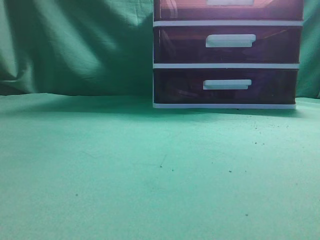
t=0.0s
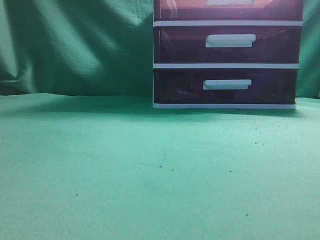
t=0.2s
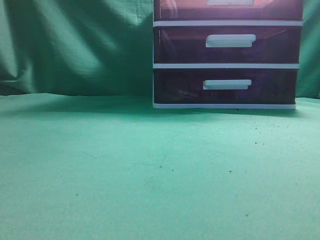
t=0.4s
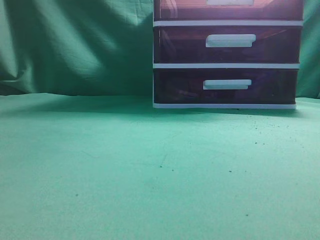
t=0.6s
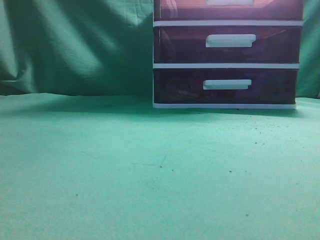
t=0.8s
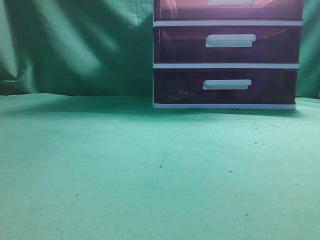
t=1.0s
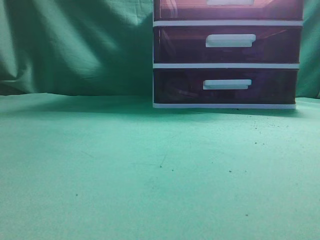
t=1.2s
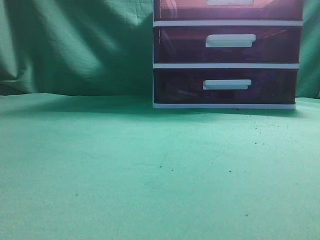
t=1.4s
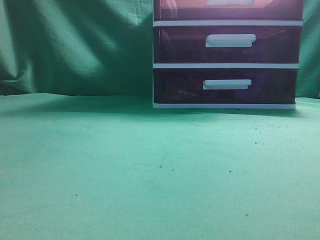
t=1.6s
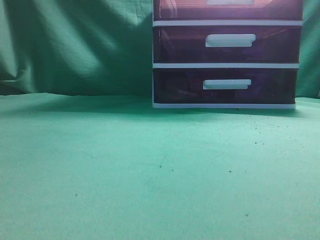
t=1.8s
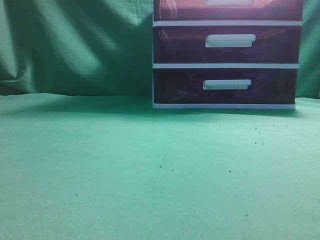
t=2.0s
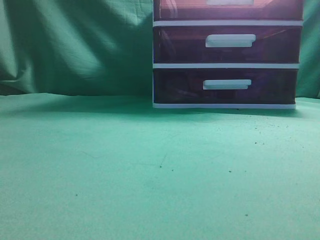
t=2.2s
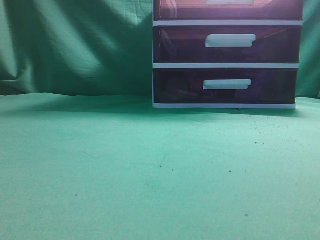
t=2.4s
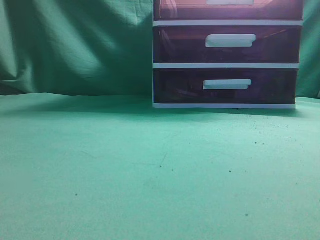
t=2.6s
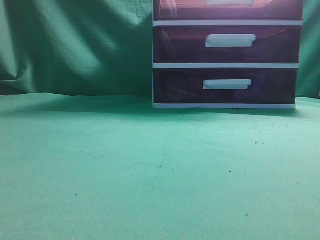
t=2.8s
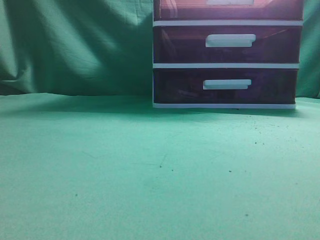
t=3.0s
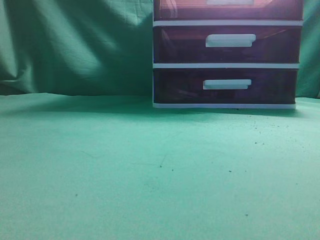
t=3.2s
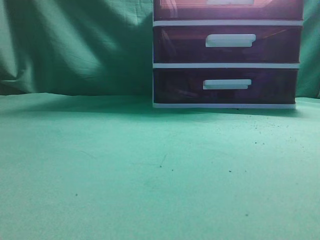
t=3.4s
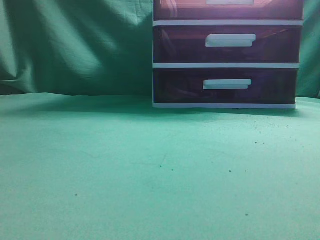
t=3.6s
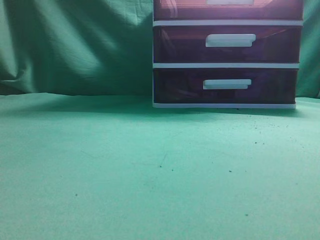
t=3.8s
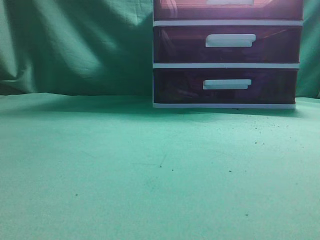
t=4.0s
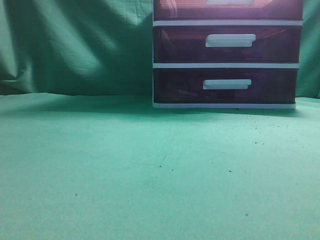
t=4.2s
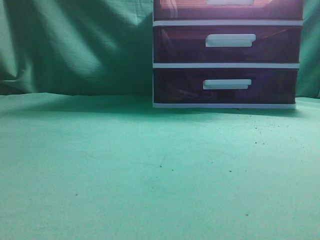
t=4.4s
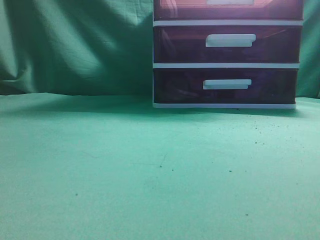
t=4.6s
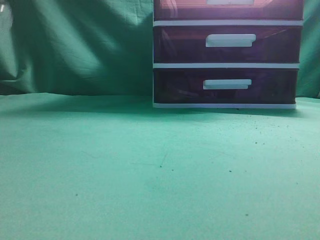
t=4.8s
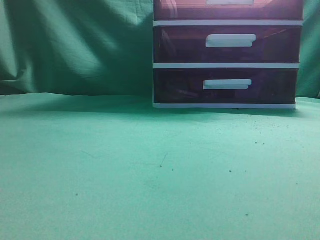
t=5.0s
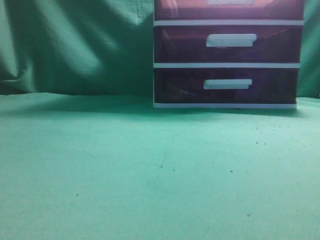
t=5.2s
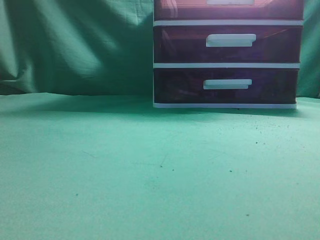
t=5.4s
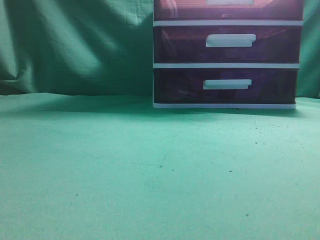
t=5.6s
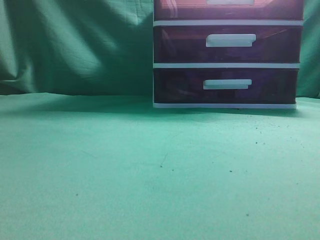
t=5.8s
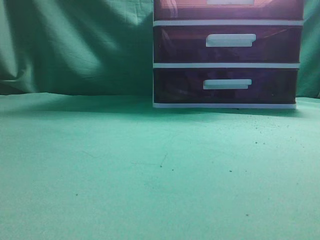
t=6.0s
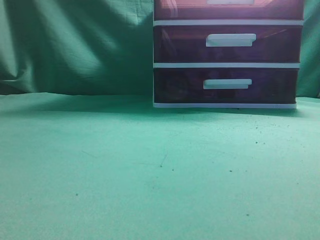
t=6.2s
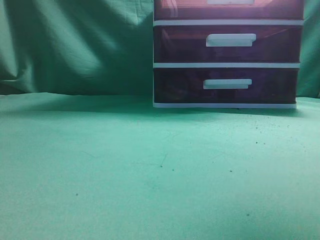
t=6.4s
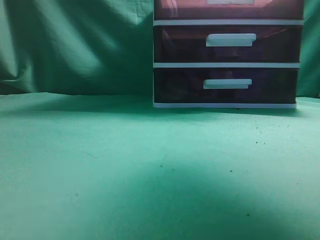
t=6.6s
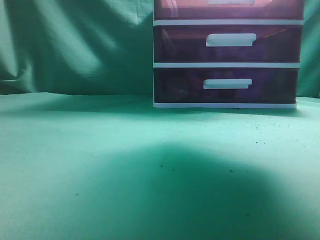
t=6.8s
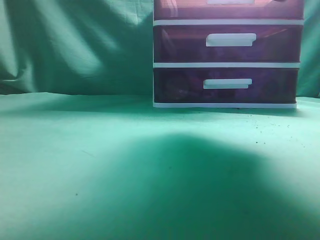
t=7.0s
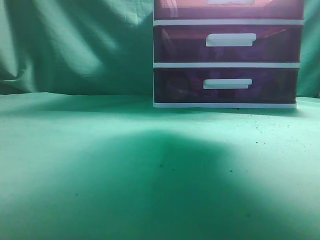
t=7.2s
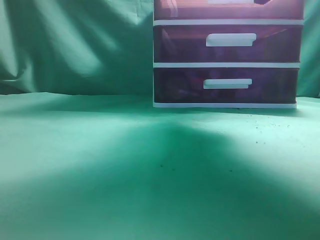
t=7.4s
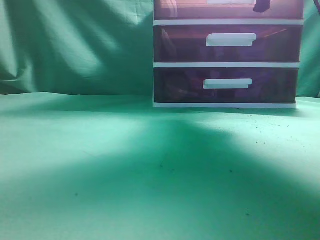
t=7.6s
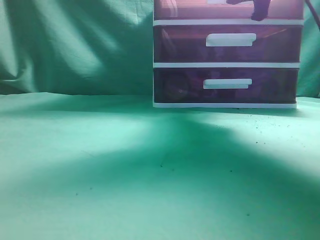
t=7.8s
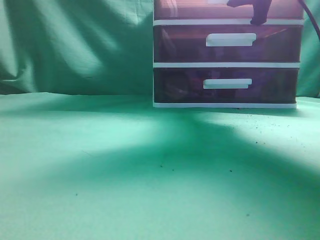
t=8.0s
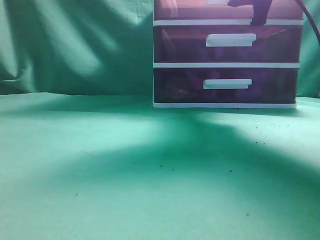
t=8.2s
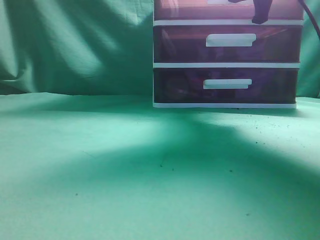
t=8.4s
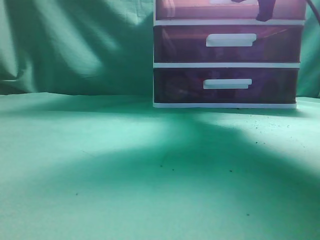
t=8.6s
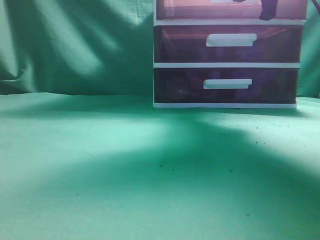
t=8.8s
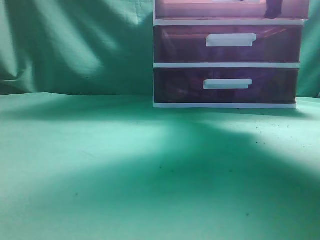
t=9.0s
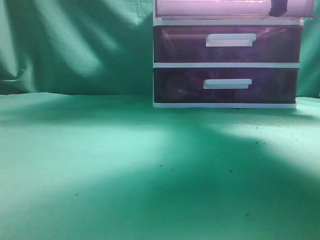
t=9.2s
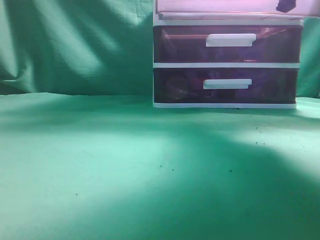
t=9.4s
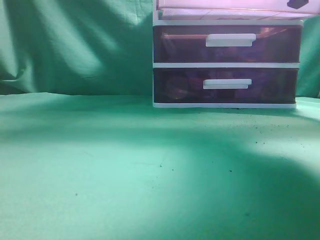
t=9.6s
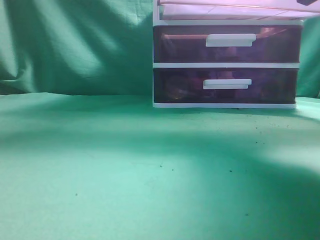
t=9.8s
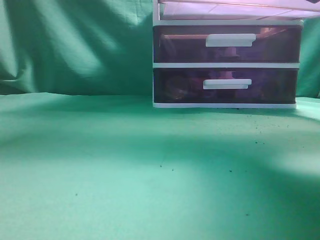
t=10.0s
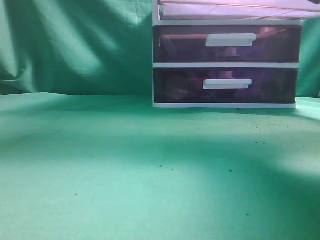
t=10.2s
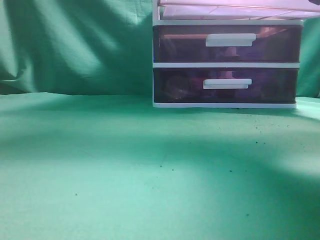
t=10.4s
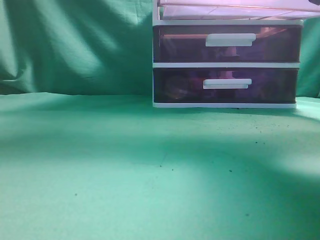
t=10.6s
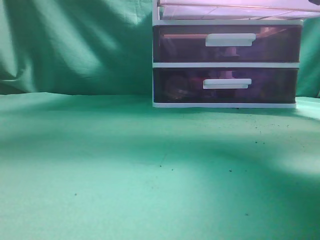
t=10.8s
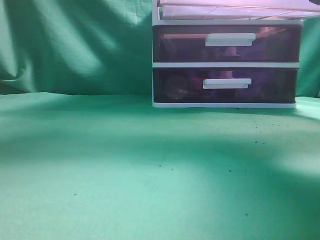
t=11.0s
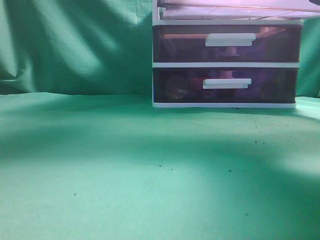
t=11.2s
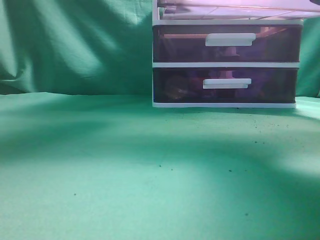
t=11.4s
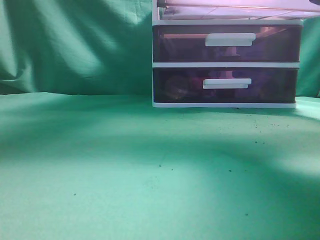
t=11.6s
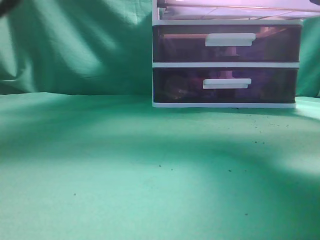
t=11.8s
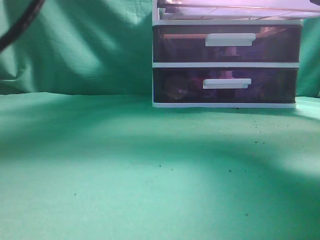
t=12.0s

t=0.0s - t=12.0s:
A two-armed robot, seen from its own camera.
Task of the whole recording: place the water bottle into the drawer.
Step, t=0.0s - t=10.6s: Open the drawer.
t=6.0s - t=7.6s: The right gripper is displaced forward by some 30 cm, and opens up.
t=7.6s - t=9.0s: The right gripper closes up.
t=9.0s - t=10.4s: The right gripper travels backward by about 10 cm. Meanwhile the left gripper heads upward and forward, covering roughly 10 cm.
t=10.4s - t=12.0s: The left gripper goes roughly 30 cm forward and to the right.

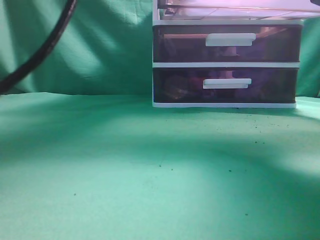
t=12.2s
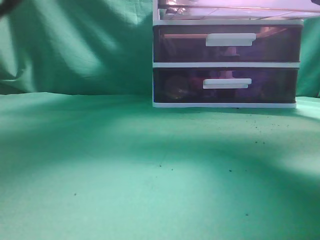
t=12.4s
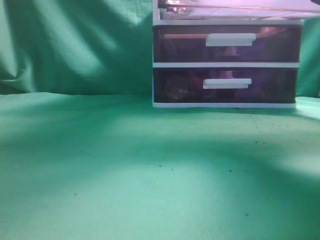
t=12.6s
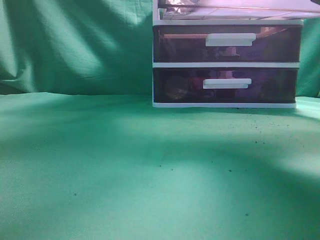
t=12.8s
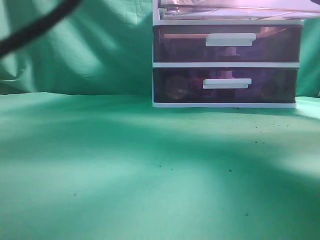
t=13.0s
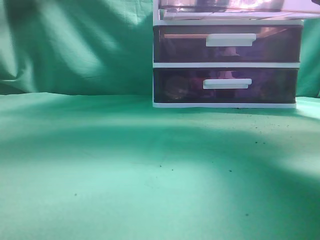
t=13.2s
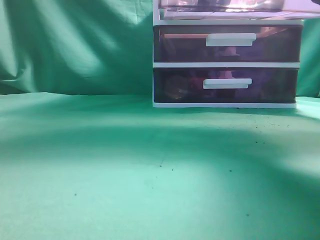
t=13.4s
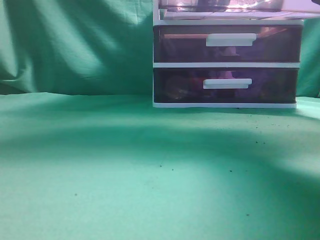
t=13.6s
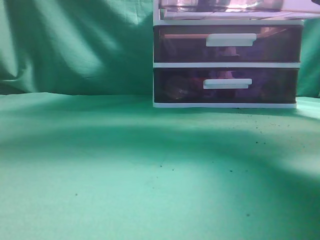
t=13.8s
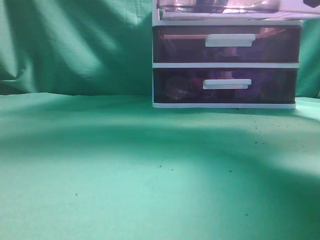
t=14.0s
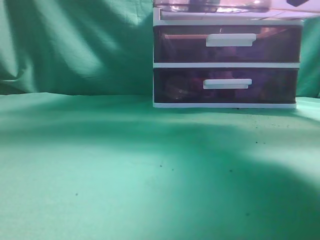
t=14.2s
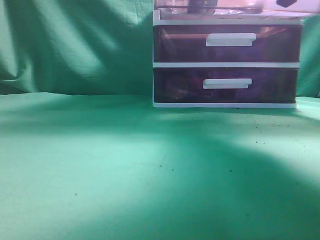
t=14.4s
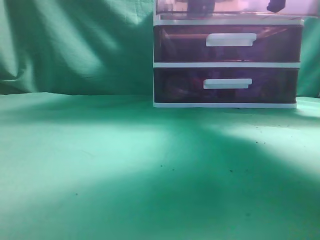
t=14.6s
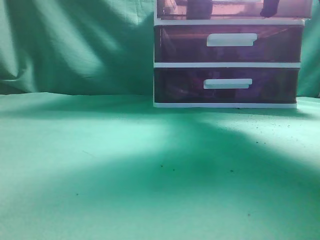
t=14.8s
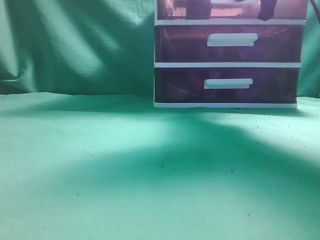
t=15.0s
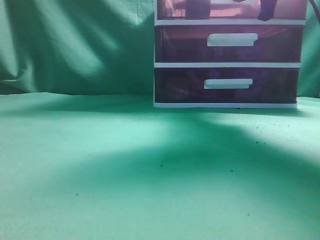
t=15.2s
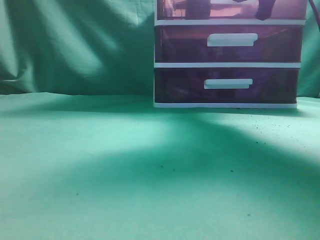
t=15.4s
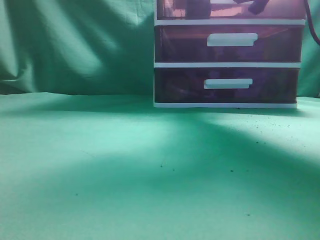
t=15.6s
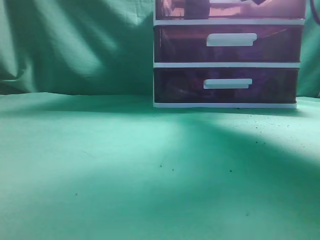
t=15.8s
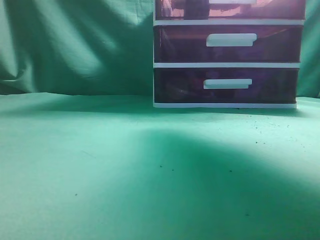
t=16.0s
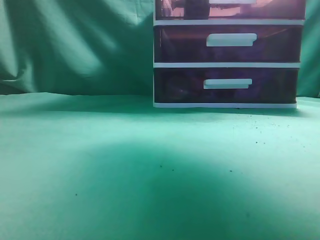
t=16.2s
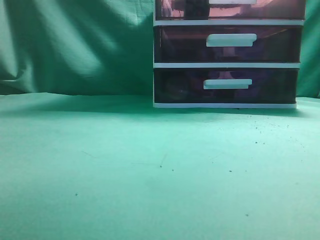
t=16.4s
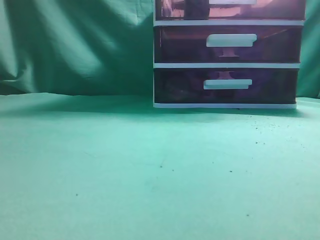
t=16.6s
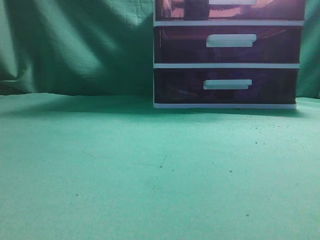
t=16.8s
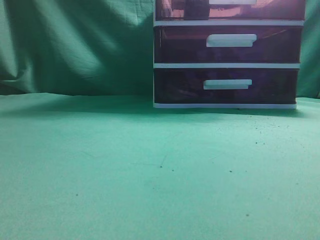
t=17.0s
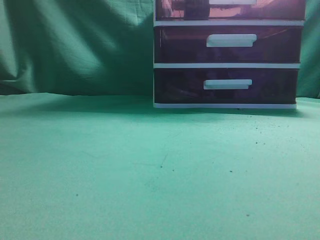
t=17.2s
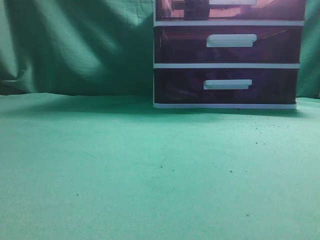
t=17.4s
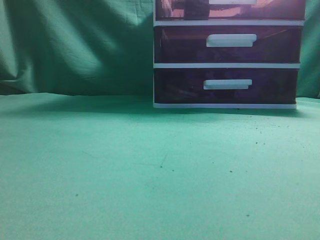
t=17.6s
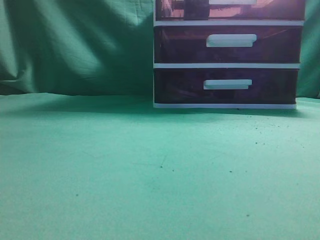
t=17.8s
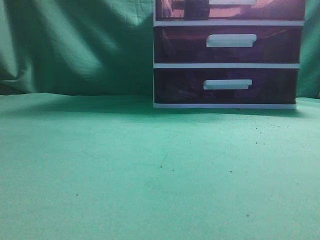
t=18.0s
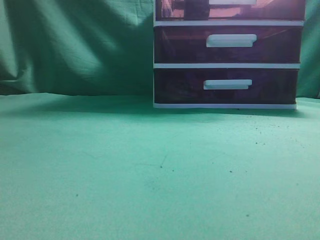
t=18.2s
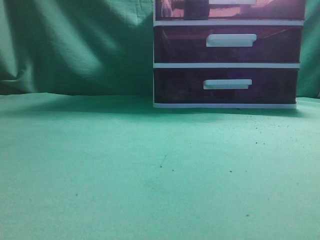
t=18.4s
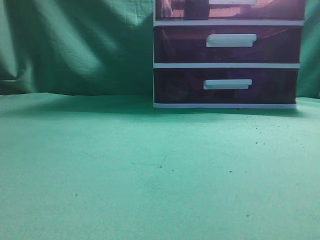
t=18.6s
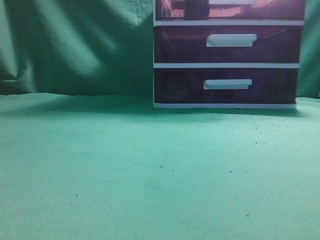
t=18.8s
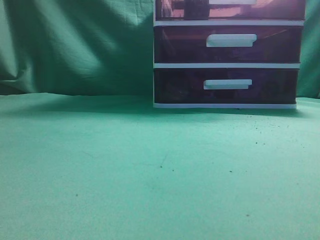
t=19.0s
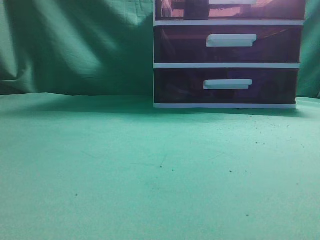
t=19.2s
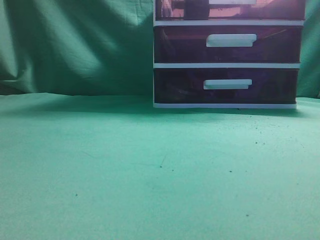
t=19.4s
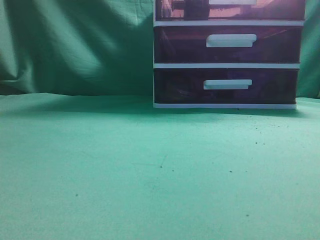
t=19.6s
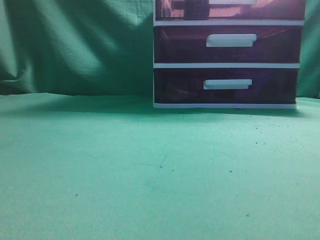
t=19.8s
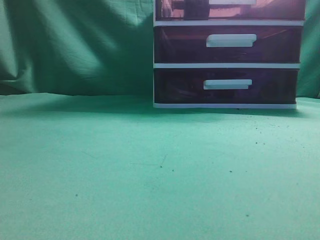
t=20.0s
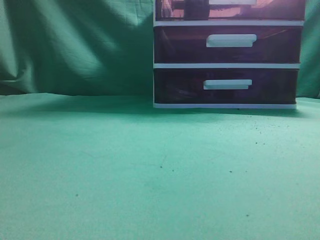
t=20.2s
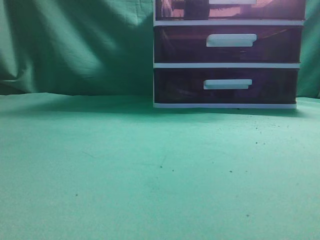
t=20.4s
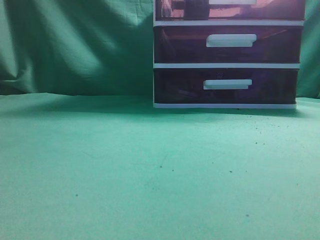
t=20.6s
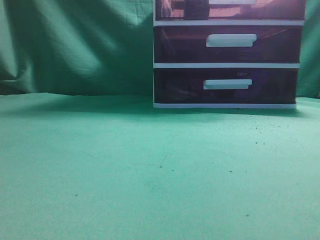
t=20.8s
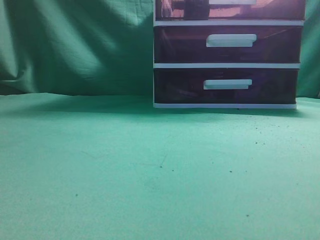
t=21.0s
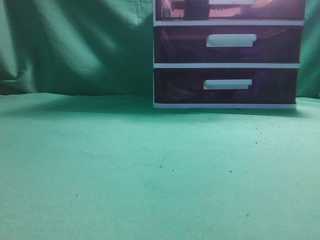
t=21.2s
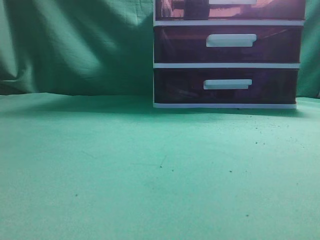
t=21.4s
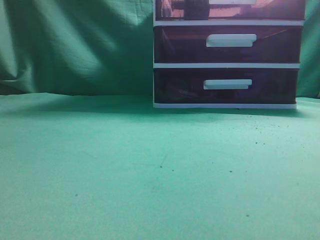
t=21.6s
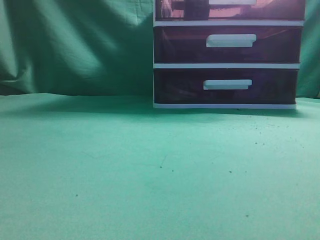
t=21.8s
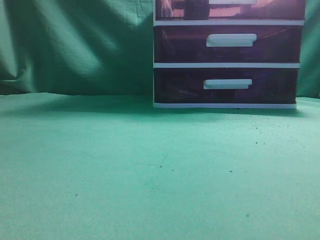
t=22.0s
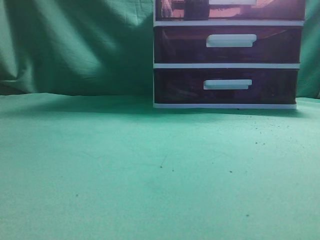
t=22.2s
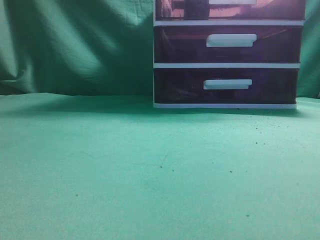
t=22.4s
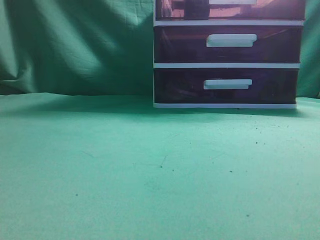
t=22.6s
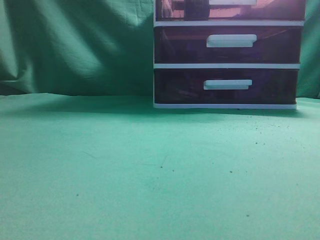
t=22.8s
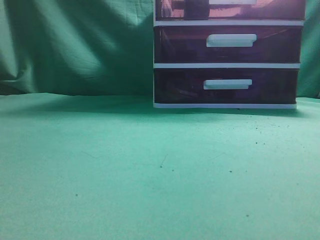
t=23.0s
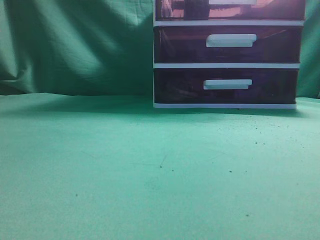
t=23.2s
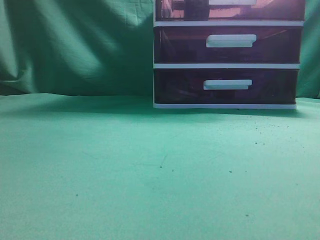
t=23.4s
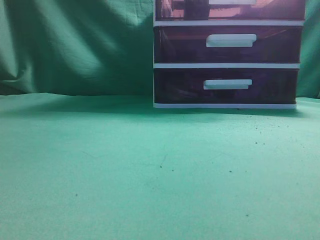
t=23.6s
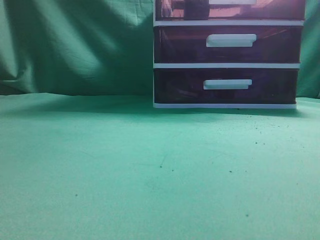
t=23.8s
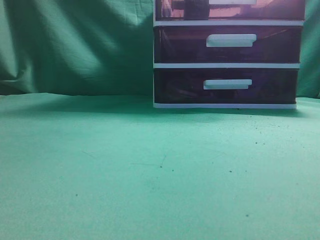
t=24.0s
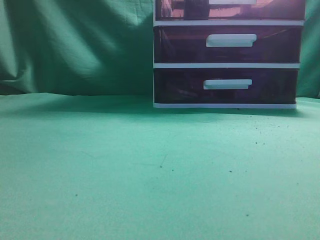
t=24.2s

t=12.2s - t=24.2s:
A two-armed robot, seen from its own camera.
Task of the whole recording: place the water bottle into the drawer.
Step, t=12.2s - t=16.0s: Close the drawer.
t=12.2s - t=13.8s: The left gripper moves upward and backward, some 10 cm, and closes.
t=13.8s - t=15.2s: The right gripper goes about 15 cm forward, while the left gripper goes about 25 cm backward and to the left.
t=15.2s - t=16.6s: The right gripper heads backward and upward, covering some 15 cm, and opens, then closes once more. Meanwhile the left gripper ends up roughly 5 cm from where it was.
t=16.6s - t=18.2s: The left gripper heads downward, covering roughly 20 cm. The right gripper shifts about 25 cm backward.
t=21.2s - t=22.6s: Both grippers stay about where they are.
